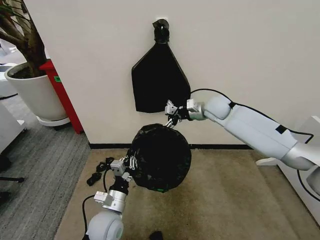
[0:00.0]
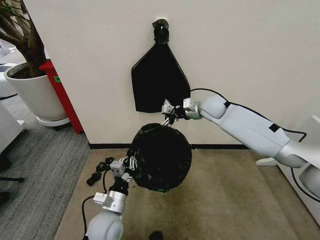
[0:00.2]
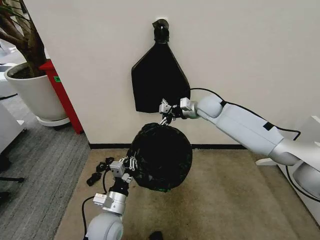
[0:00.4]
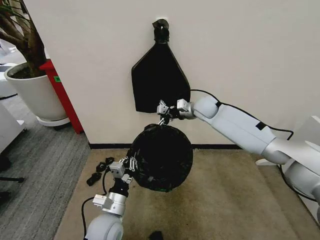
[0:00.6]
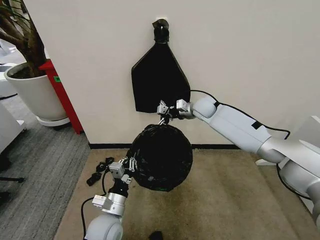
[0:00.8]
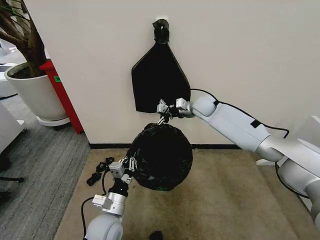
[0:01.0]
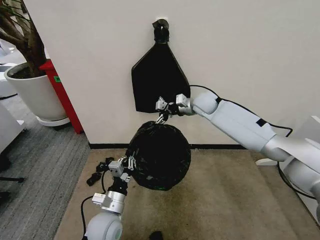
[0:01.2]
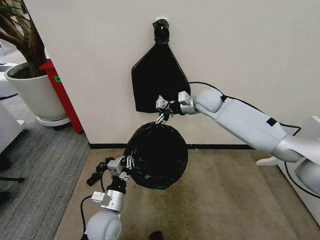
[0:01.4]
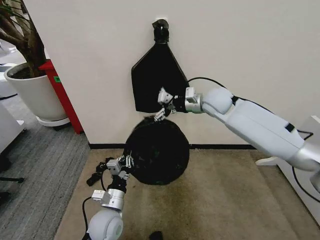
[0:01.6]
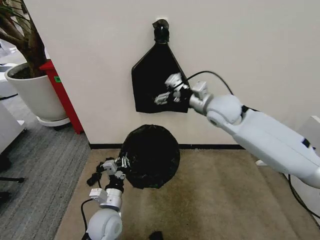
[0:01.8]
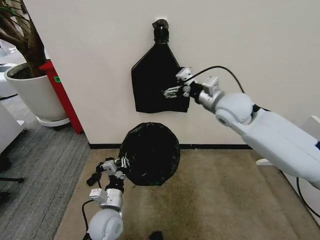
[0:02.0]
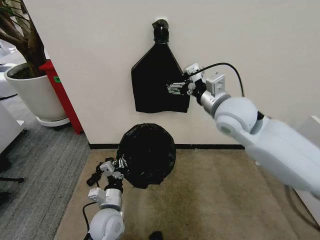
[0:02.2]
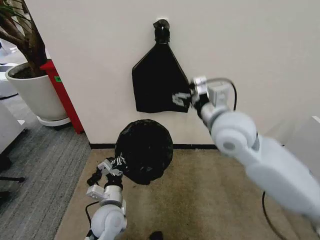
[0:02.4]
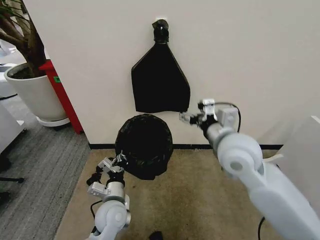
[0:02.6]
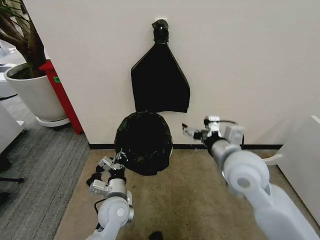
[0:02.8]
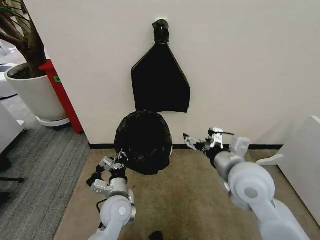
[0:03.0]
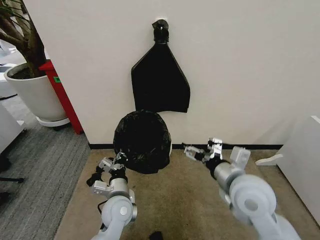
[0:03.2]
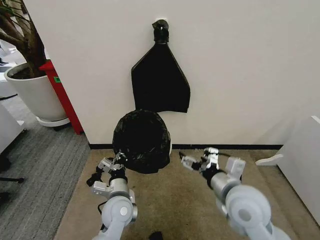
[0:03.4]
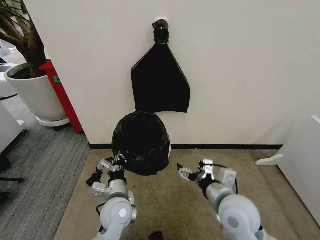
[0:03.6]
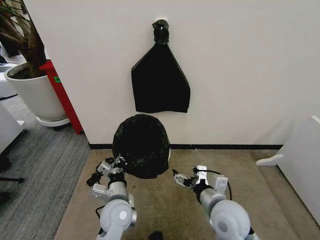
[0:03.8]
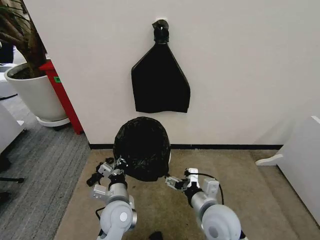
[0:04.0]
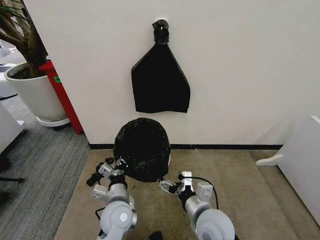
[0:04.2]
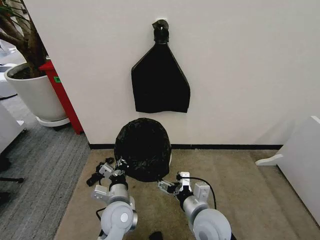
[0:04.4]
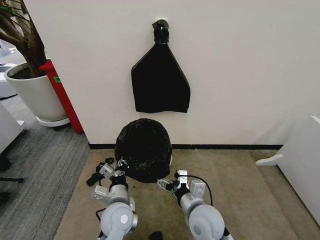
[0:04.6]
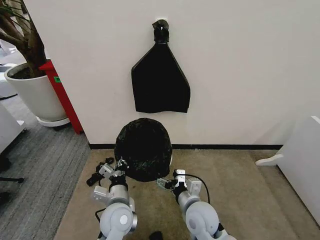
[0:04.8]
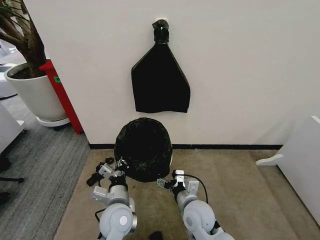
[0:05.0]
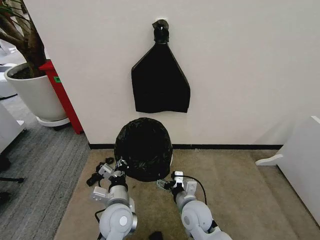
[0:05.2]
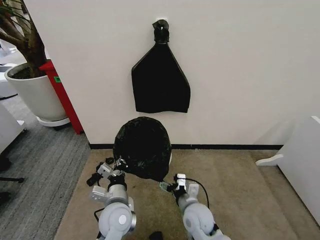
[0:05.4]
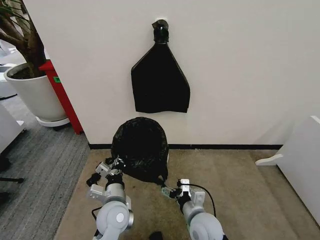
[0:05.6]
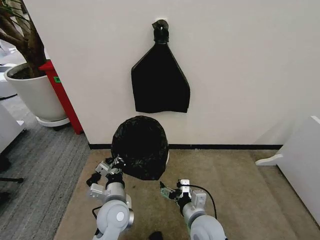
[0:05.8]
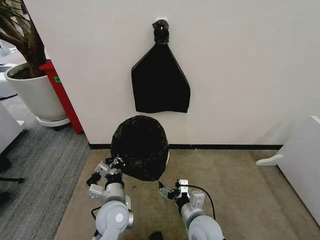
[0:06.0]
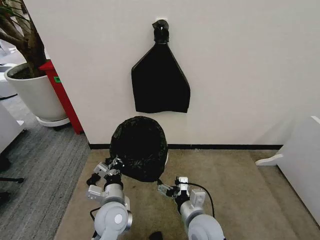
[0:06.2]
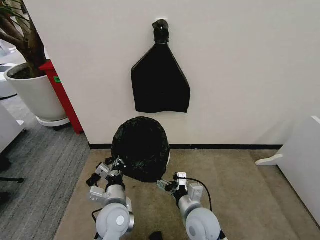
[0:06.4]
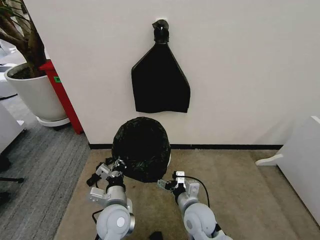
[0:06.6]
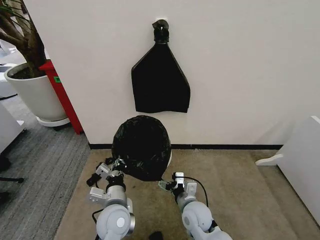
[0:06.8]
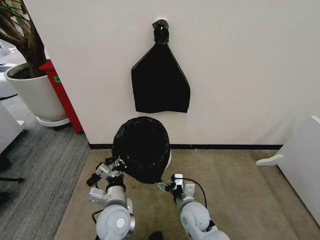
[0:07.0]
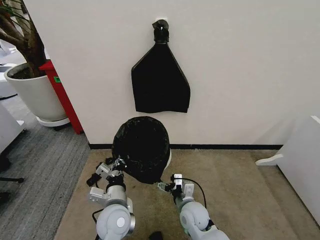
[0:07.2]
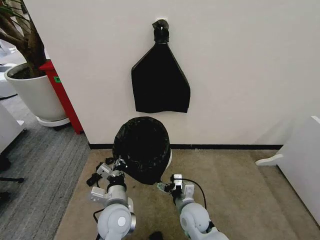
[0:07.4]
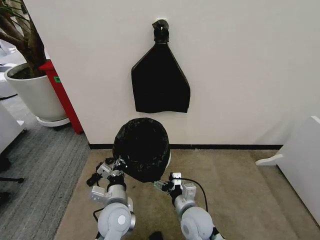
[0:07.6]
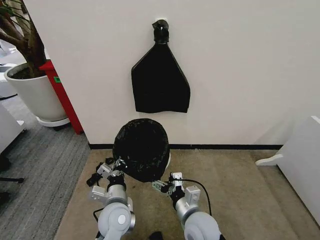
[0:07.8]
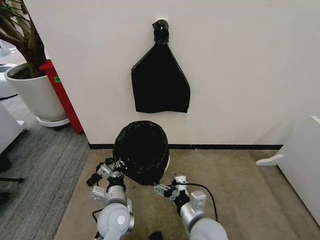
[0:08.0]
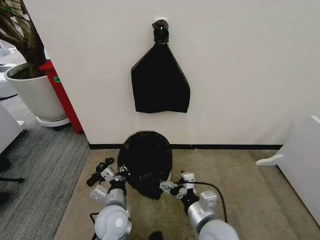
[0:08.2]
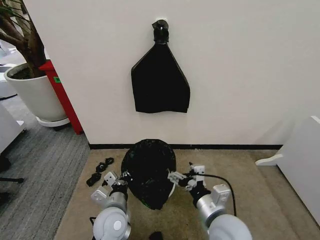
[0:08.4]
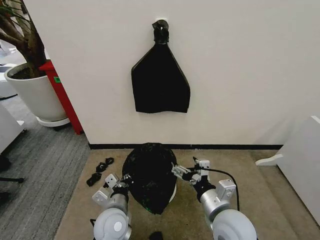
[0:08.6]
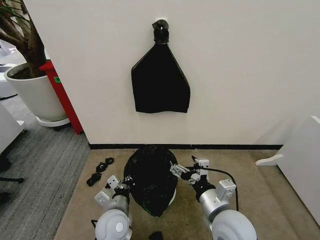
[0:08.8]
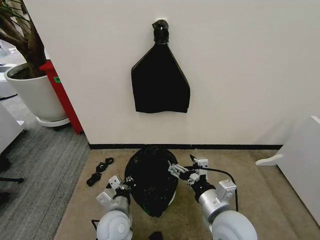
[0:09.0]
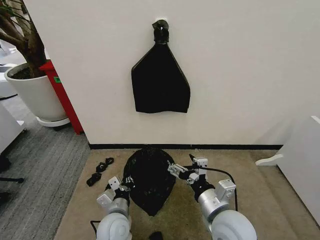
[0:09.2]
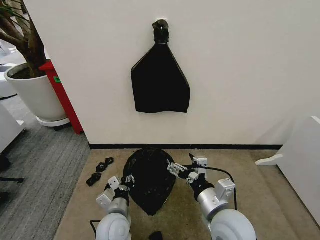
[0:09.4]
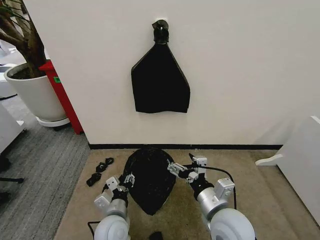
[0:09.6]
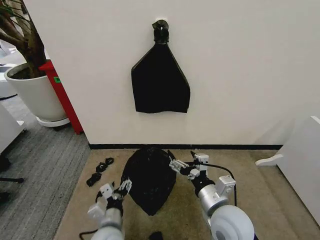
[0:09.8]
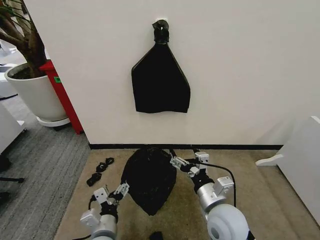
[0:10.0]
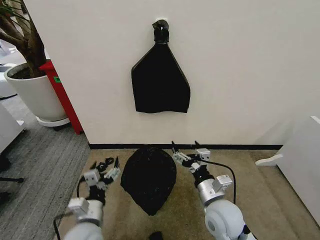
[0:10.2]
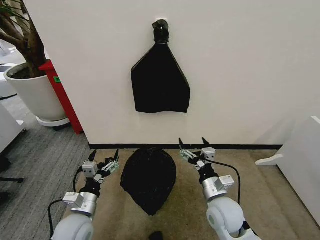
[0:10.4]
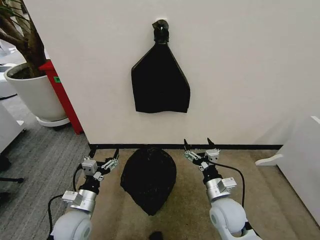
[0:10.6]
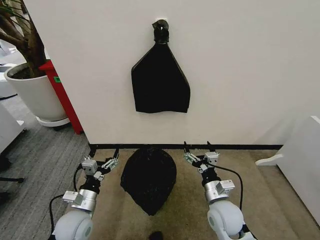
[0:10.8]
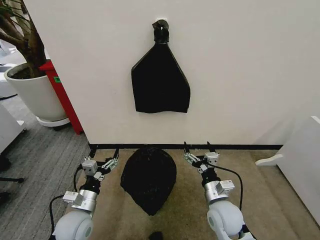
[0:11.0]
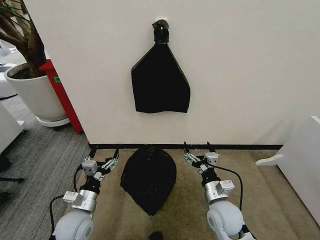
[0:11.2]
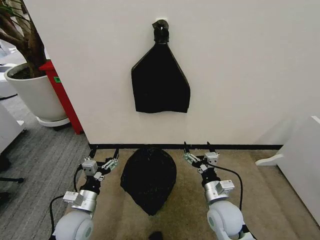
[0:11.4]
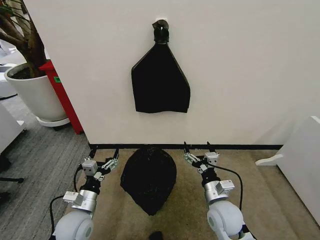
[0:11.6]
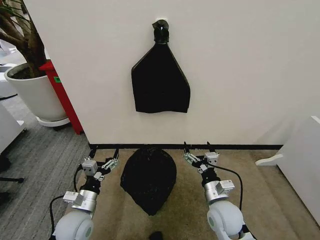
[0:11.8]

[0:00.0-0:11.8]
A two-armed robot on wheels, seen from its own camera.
Task of the whole recording: Place the garbage bag over the trash bin.
0:00.0 to 0:01.4: The grippers stay close to where they were, moving slightly.
0:01.4 to 0:03.0: The right gripper goes some 30 cm backward, while the left gripper changes place by some 5 cm.
0:03.0 to 0:04.4: The right gripper heads downward, to the left and backward, covering approximately 15 cm.
0:04.4 to 0:06.0: The right gripper travels downward by some 5 cm.
0:06.0 to 0:07.4: The right gripper shifts approximately 10 cm forward and downward.
0:07.4 to 0:08.8: The right gripper travels upward and backward by about 15 cm.
0:08.8 to 0:10.4: The right gripper moves downward and forward, roughly 10 cm; the left gripper heads to the left, covering roughly 10 cm, and opens its fingers.
0:10.4 to 0:11.8: The grippers make only small movements.

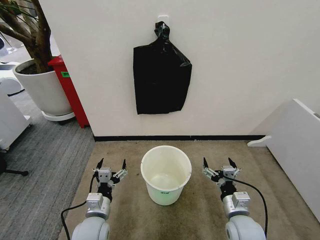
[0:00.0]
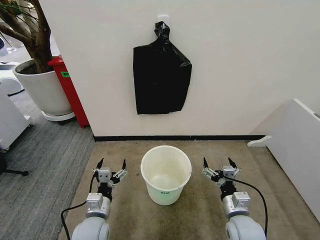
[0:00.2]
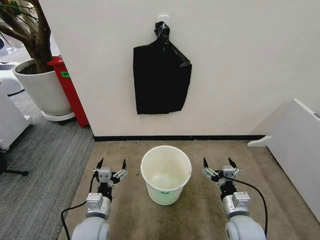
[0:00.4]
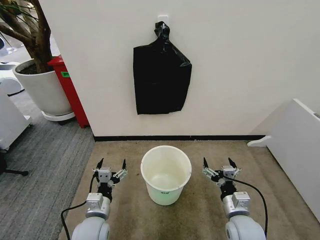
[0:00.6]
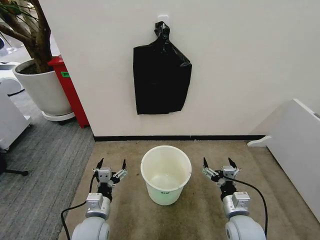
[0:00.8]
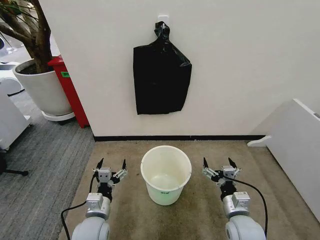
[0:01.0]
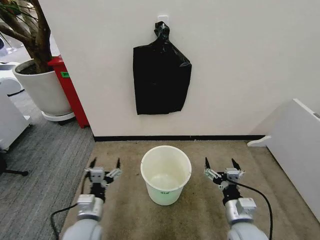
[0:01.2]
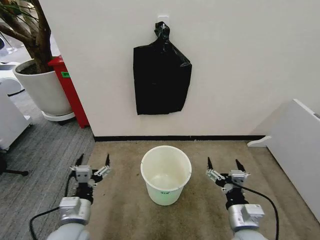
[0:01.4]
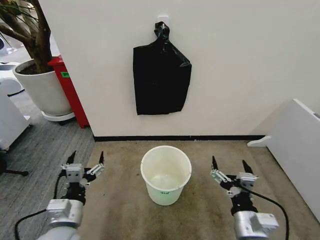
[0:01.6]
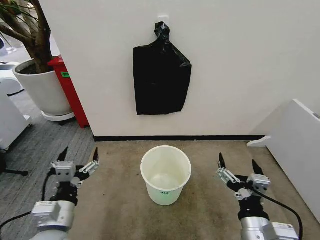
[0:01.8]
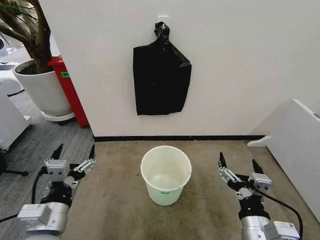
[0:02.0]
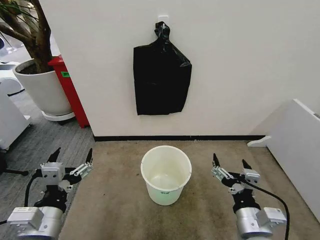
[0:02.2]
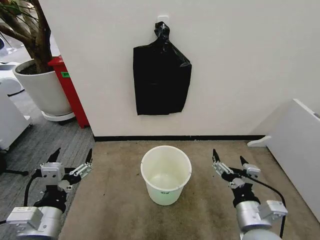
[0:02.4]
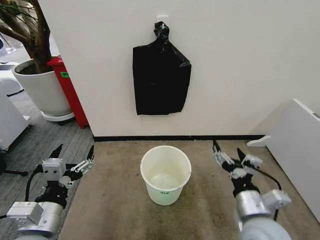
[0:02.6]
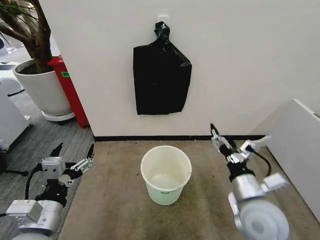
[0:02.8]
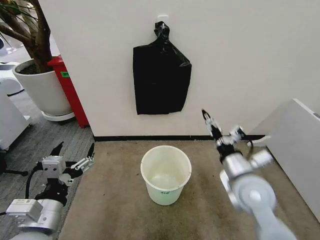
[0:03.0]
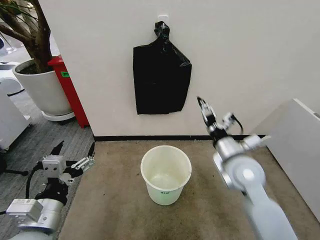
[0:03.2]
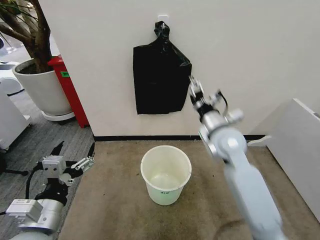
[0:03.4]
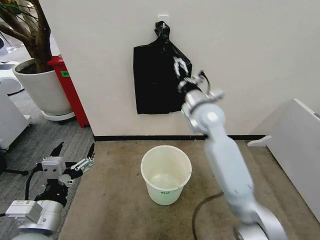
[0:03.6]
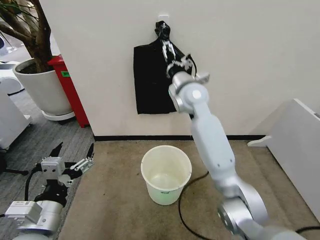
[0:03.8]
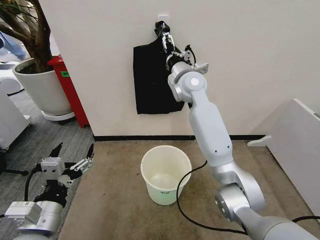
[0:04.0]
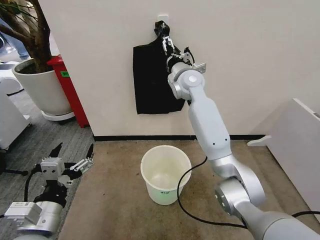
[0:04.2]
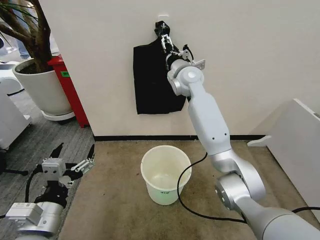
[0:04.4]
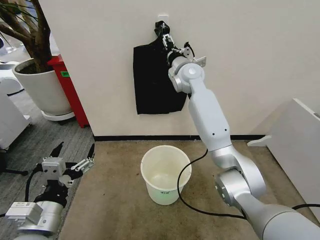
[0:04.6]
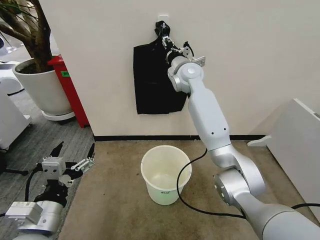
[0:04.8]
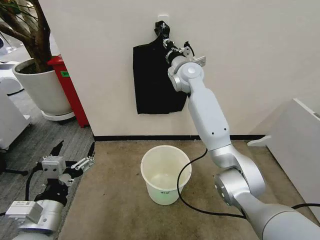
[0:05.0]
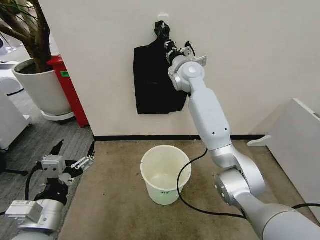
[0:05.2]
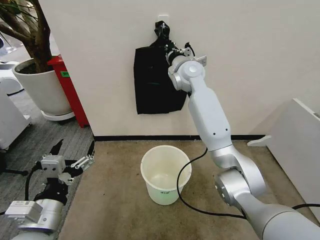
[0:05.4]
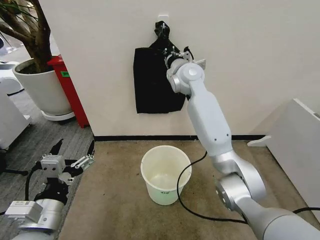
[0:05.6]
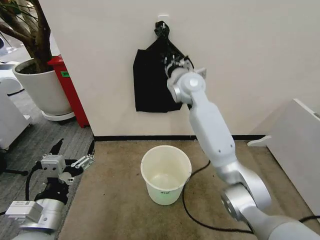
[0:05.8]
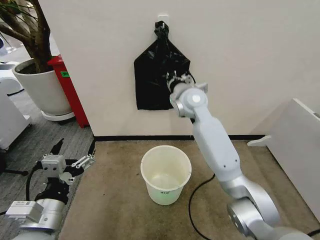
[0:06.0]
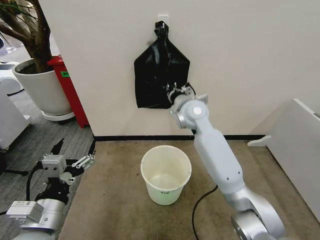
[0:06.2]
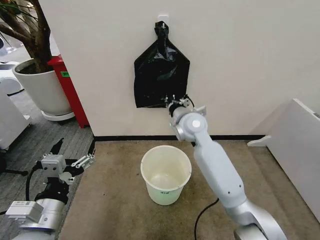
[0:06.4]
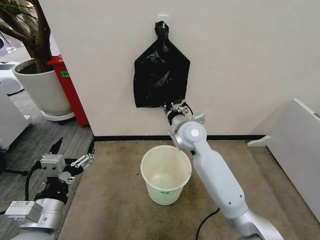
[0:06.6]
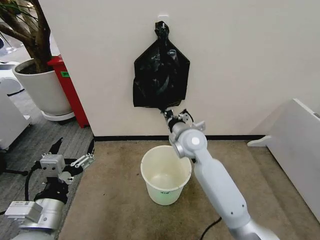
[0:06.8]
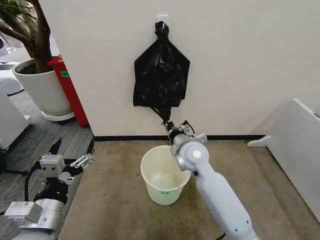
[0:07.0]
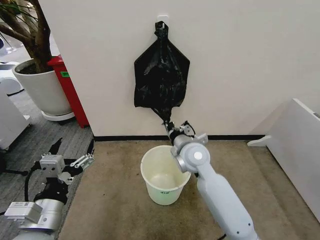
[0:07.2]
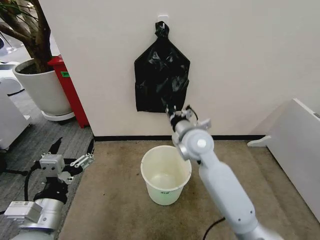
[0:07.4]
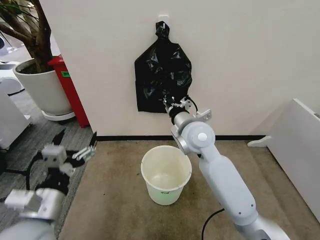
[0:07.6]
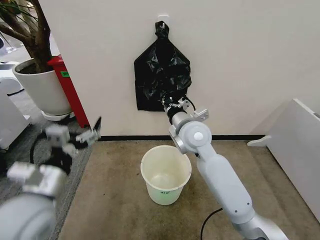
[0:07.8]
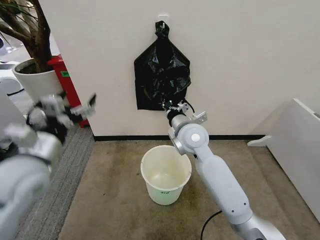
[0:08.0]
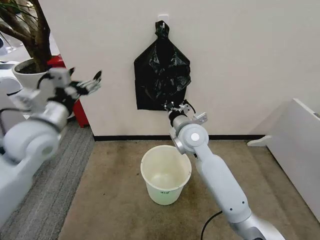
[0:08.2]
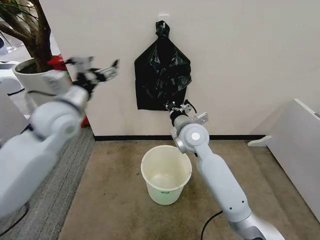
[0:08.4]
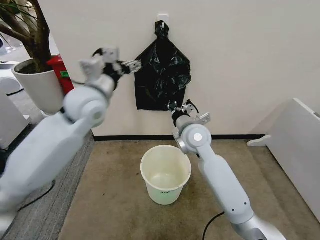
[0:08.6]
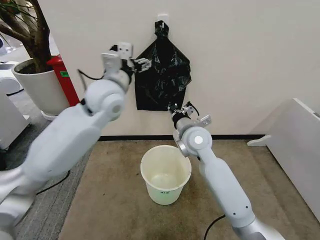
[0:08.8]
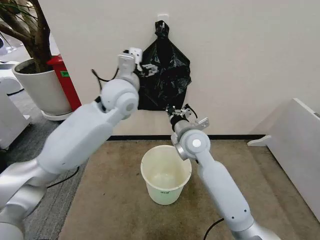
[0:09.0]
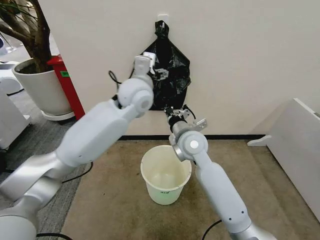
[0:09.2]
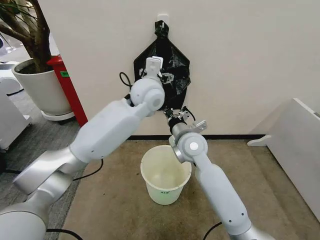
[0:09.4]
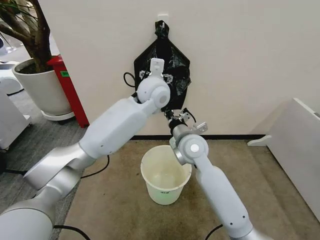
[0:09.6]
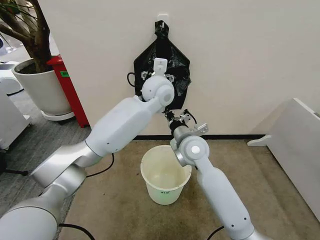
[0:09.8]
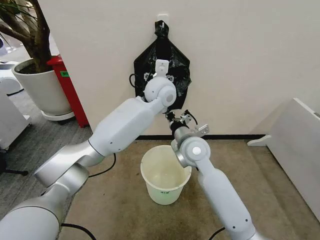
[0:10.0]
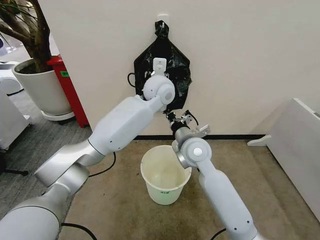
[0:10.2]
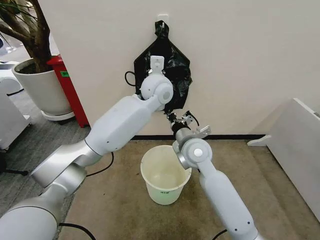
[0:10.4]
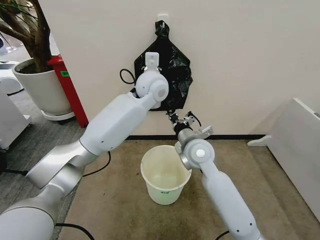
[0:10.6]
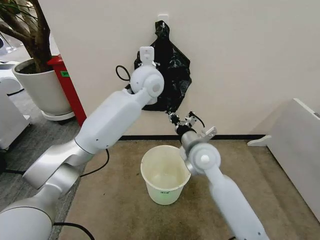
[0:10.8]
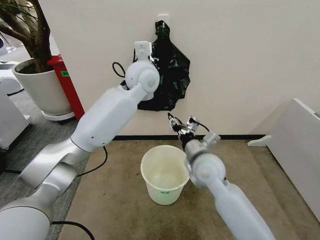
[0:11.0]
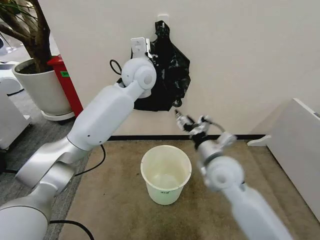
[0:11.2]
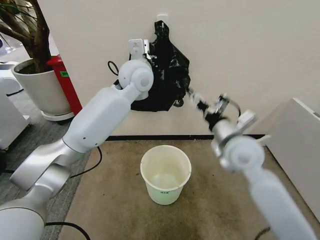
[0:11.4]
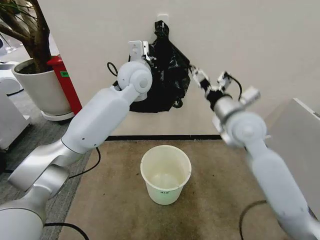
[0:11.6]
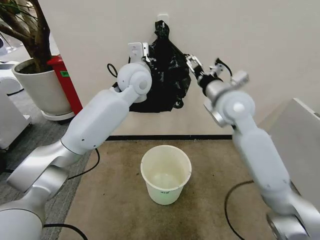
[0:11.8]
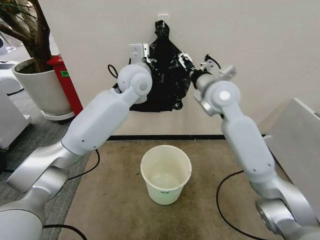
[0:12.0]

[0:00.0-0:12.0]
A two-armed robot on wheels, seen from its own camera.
Task of the whole recording: Place the garbage bag over the trash bin.
0:01.6 to 0:03.0: The left gripper heads upward, covering approximately 10 cm, while the right gripper shifts roughly 15 cm forward and upward.
0:03.0 to 0:04.4: The right gripper travels forward, upward and to the left by about 40 cm.
0:04.4 to 0:06.0: The right gripper travels backward by roughly 5 cm, and closes.
0:06.0 to 0:07.6: The right gripper goes some 10 cm backward.
0:07.6 to 0:09.0: The left gripper is displaced forward, to the right and upward by approximately 35 cm.
0:09.0 to 0:10.4: The left gripper goes some 10 cm to the right and forward, and closes its fingers.
0:10.4 to 0:12.0: The right gripper shifts roughly 20 cm upward, forward and to the right, and opens its fingers; the left gripper is displaced to the left by about 5 cm, and closes up.
